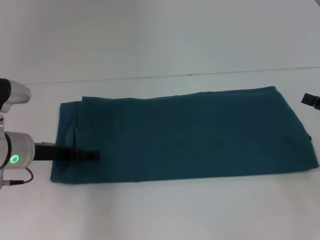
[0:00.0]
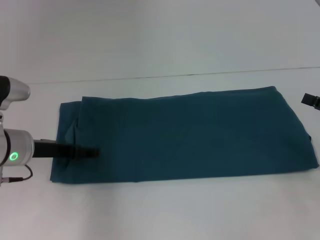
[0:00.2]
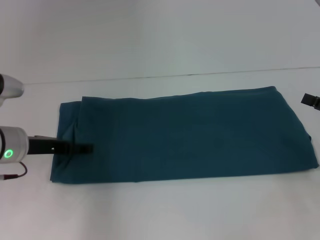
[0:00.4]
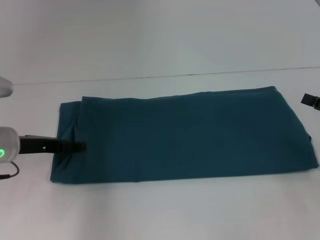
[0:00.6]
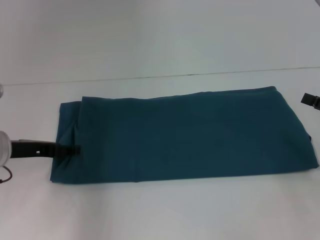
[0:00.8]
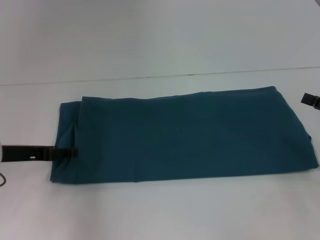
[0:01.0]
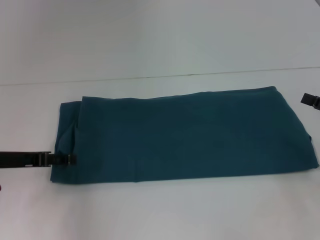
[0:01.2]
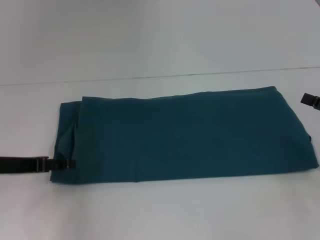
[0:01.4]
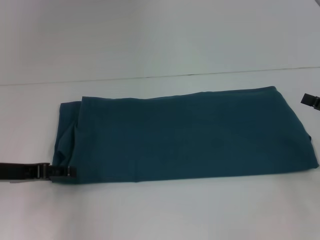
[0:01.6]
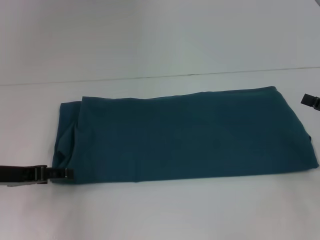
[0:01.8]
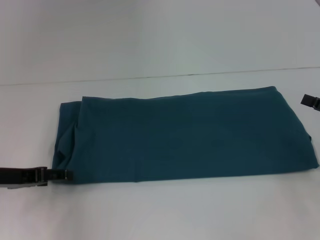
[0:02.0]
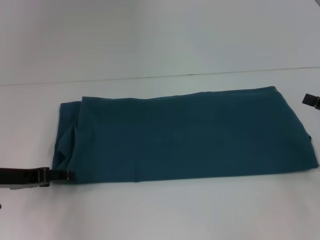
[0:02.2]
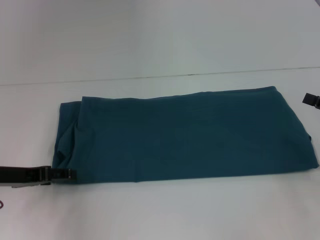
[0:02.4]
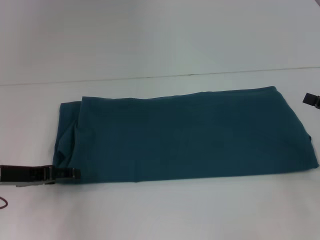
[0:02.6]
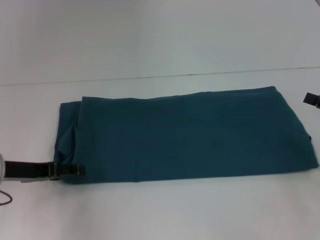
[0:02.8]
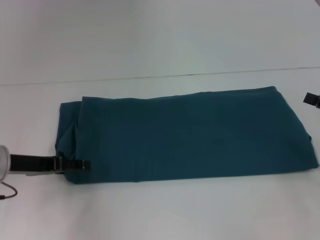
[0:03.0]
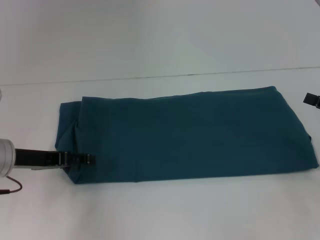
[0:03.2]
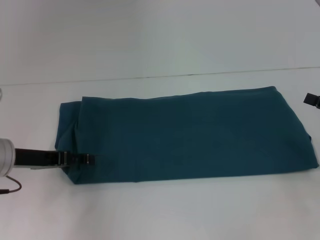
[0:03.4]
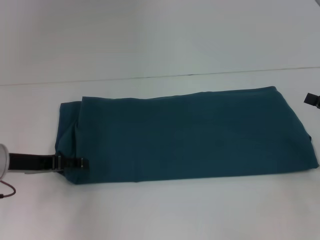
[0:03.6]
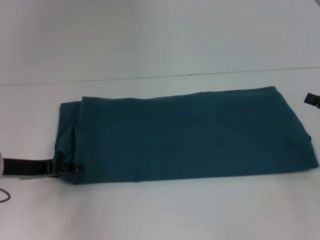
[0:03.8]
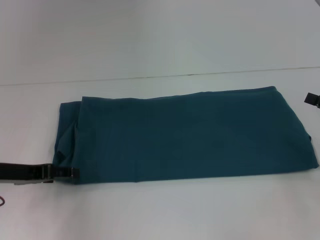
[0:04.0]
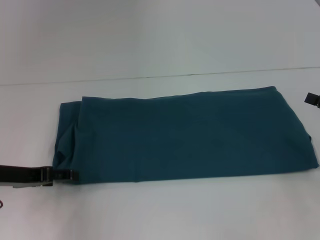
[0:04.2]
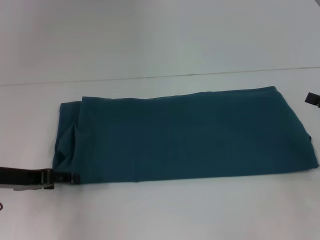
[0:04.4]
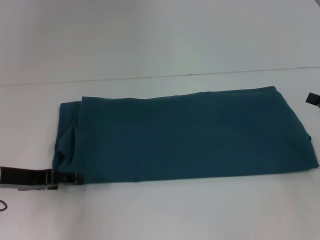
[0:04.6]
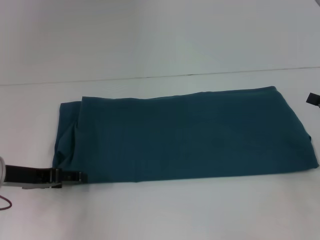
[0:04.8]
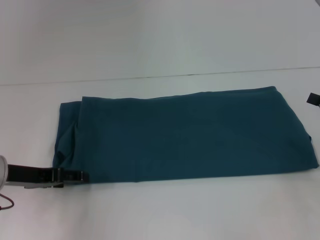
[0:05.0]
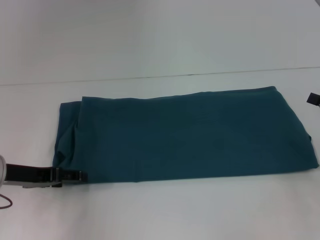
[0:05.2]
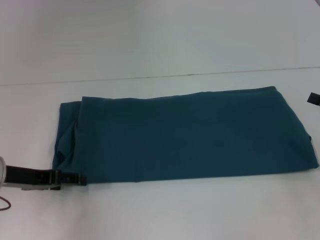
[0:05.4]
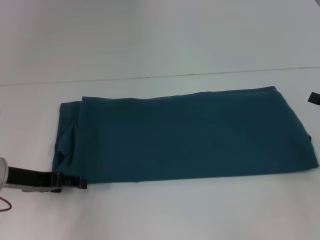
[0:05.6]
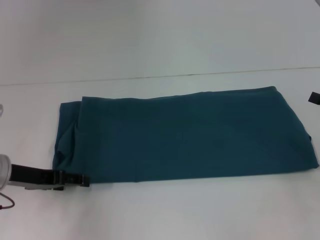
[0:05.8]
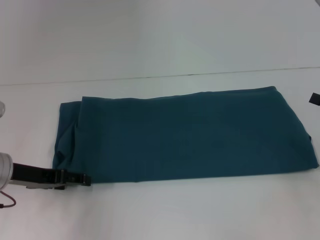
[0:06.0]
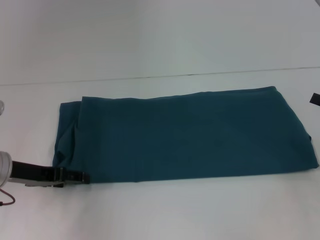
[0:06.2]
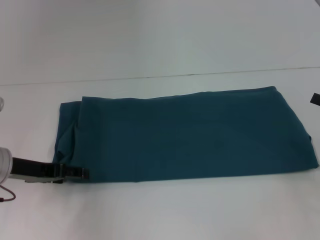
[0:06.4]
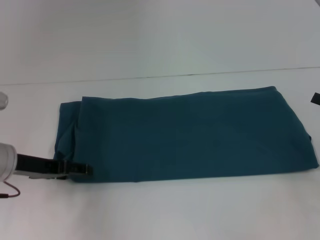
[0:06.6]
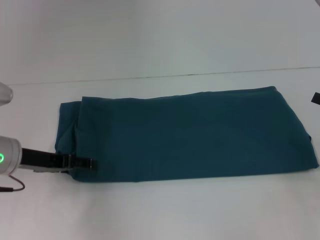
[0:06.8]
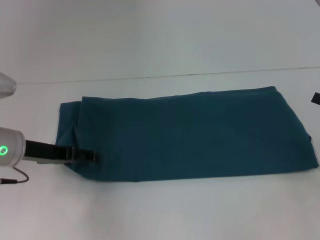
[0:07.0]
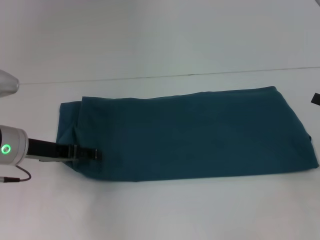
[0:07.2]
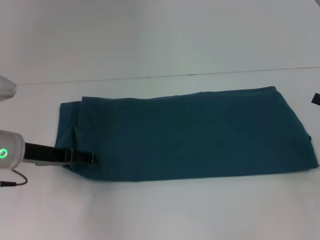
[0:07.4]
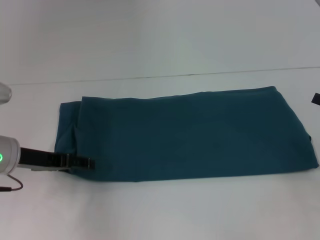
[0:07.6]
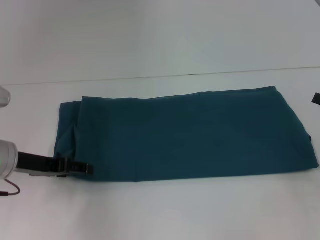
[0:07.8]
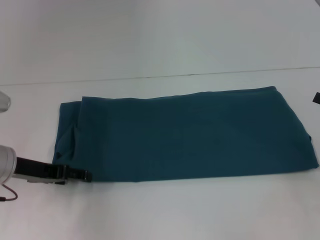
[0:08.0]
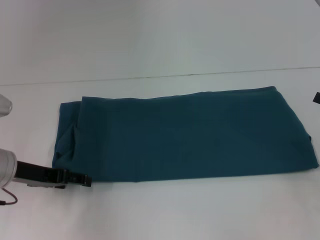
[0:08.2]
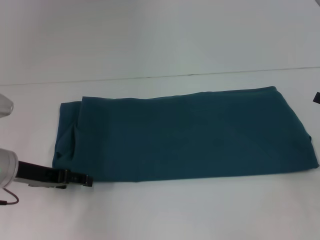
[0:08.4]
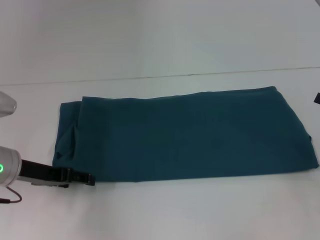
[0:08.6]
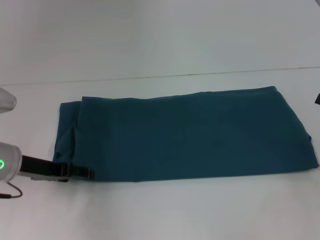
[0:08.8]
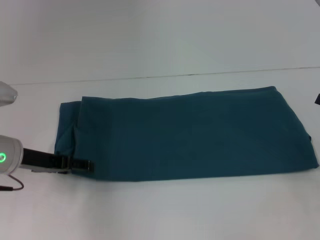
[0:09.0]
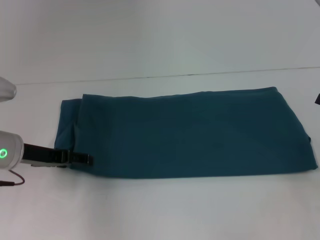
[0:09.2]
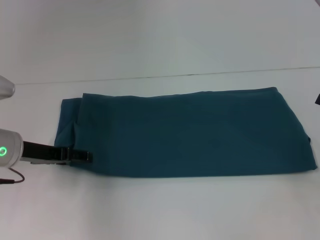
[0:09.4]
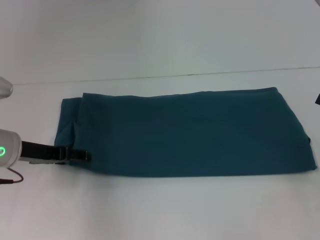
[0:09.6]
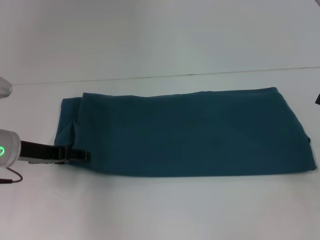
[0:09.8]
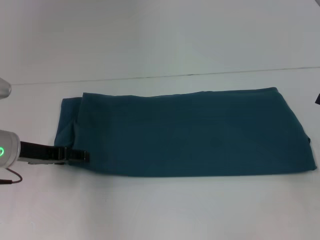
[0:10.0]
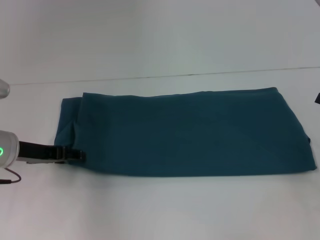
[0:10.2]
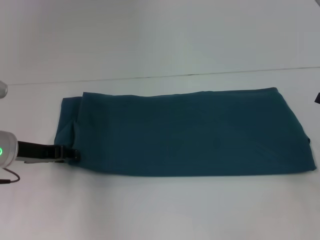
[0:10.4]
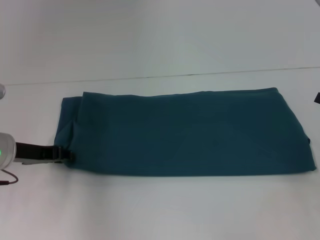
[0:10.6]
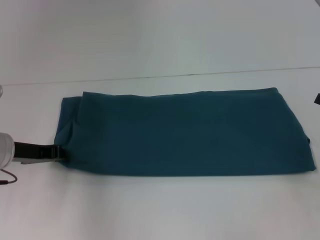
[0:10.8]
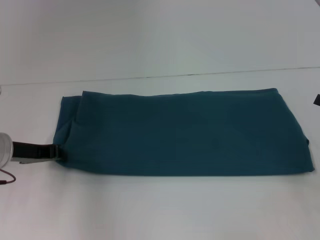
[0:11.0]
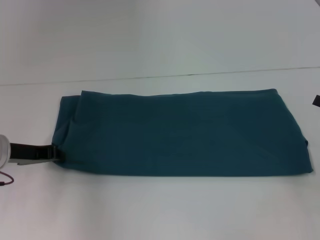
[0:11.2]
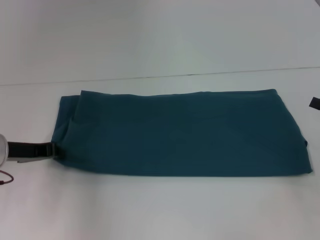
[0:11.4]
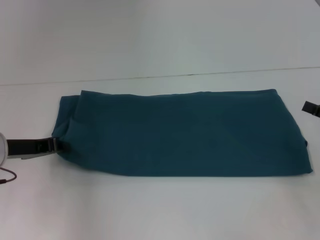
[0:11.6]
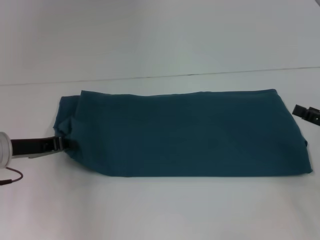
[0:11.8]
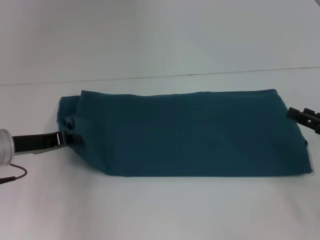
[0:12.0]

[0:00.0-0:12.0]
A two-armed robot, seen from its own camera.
0:00.0 to 0:01.6: The left gripper is displaced to the left by some 5 cm.
0:01.6 to 0:07.6: The grippers make only small movements.
0:09.0 to 0:10.4: The grippers make only small movements.
0:10.4 to 0:12.0: The left gripper closes up.

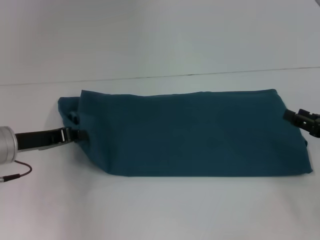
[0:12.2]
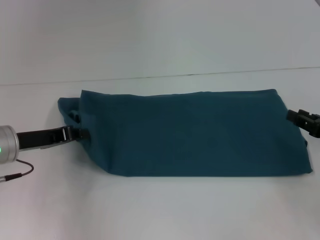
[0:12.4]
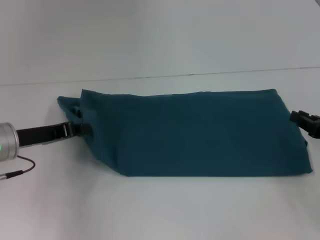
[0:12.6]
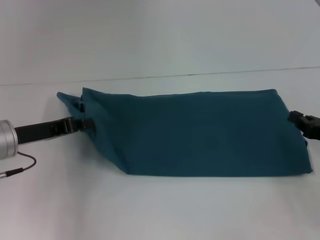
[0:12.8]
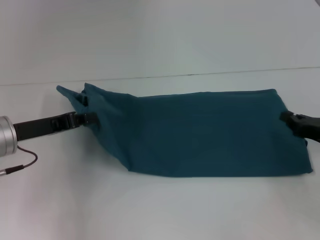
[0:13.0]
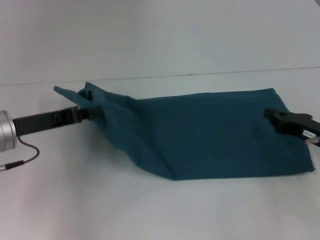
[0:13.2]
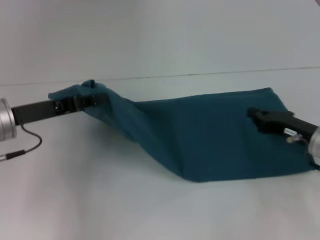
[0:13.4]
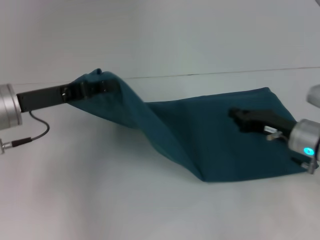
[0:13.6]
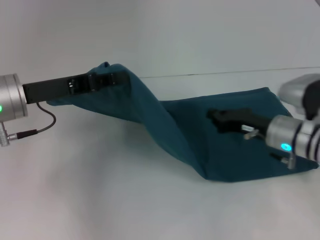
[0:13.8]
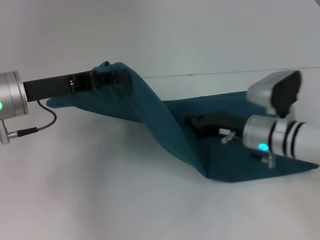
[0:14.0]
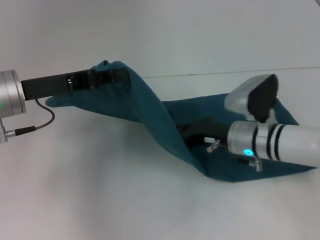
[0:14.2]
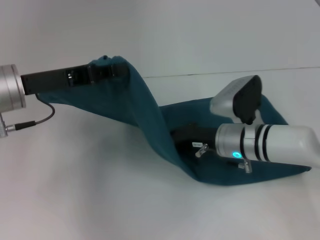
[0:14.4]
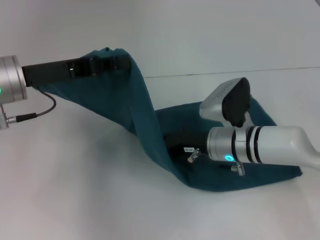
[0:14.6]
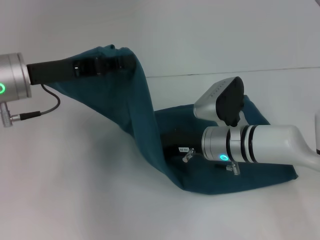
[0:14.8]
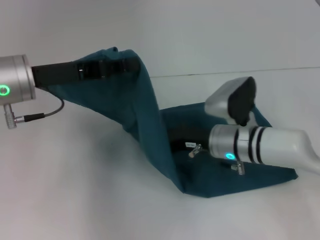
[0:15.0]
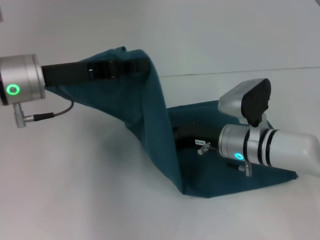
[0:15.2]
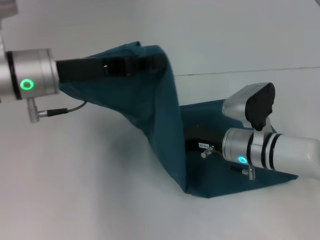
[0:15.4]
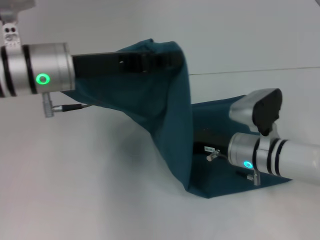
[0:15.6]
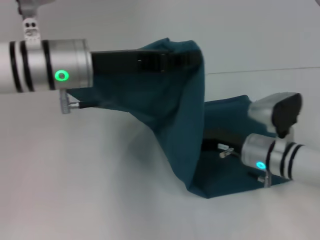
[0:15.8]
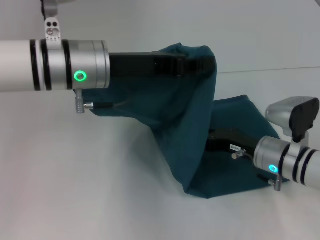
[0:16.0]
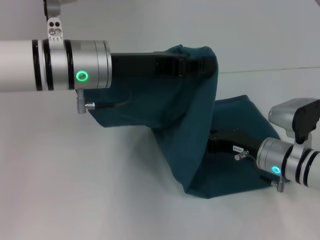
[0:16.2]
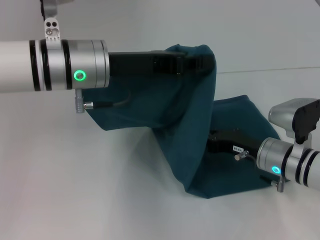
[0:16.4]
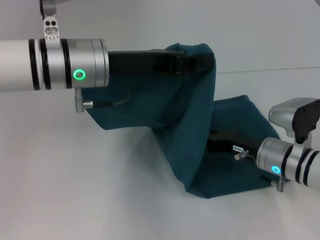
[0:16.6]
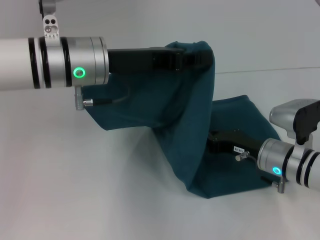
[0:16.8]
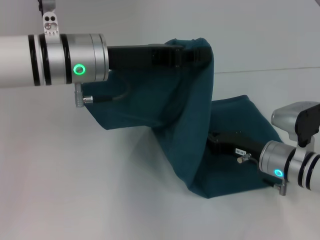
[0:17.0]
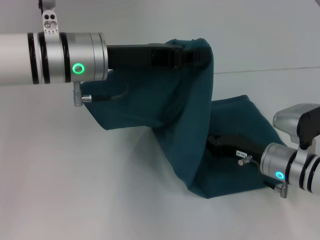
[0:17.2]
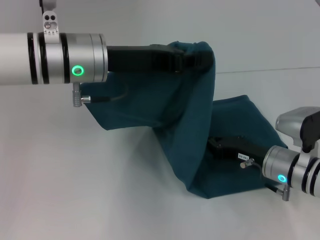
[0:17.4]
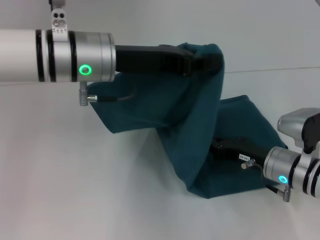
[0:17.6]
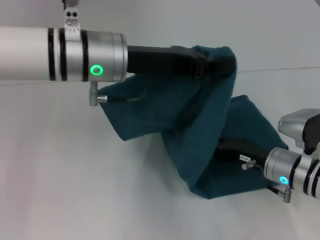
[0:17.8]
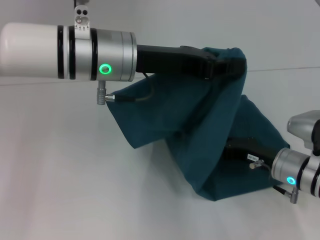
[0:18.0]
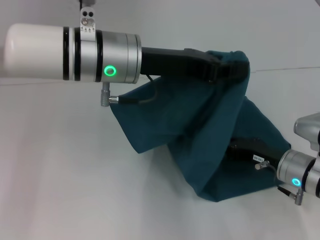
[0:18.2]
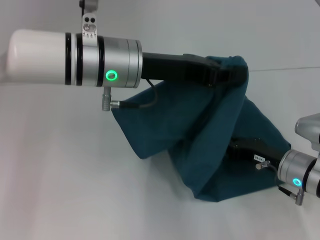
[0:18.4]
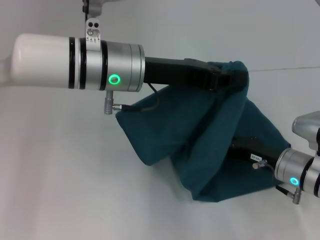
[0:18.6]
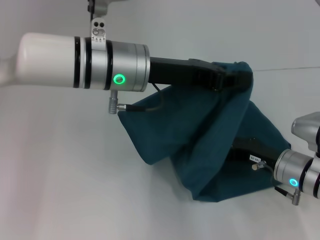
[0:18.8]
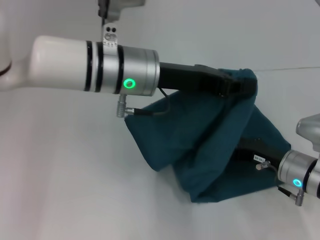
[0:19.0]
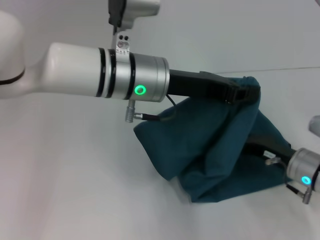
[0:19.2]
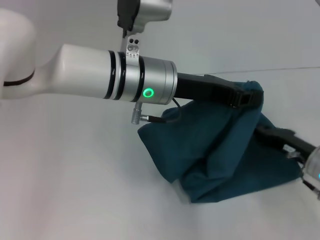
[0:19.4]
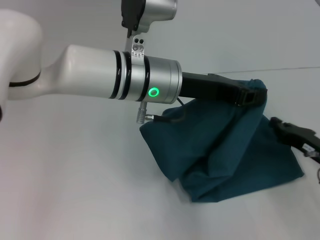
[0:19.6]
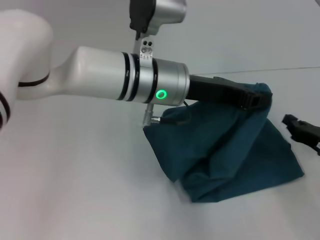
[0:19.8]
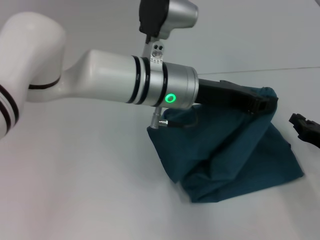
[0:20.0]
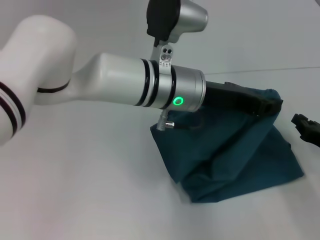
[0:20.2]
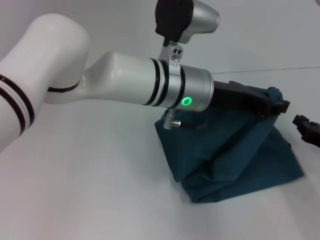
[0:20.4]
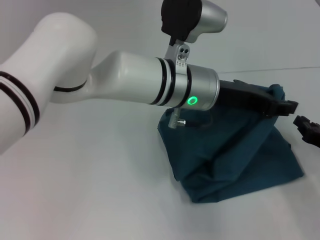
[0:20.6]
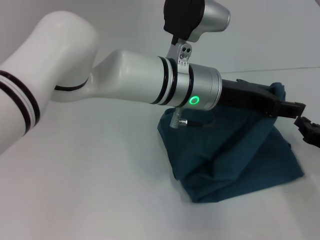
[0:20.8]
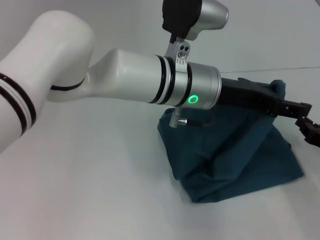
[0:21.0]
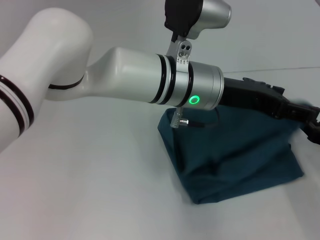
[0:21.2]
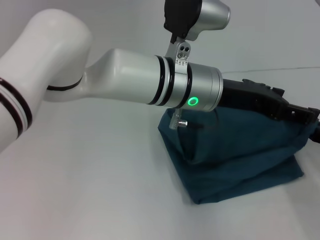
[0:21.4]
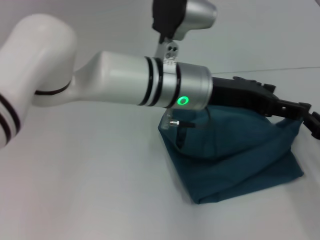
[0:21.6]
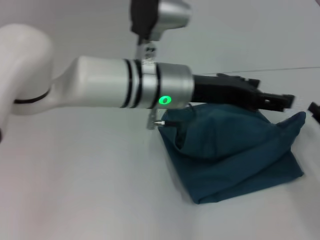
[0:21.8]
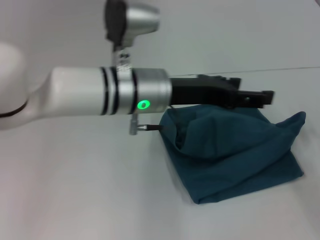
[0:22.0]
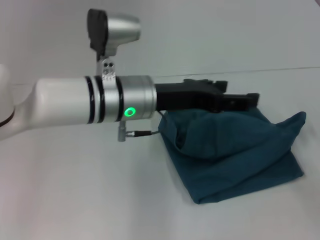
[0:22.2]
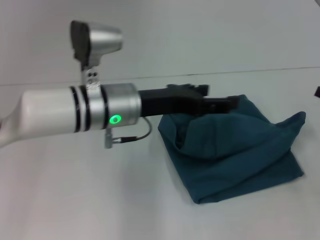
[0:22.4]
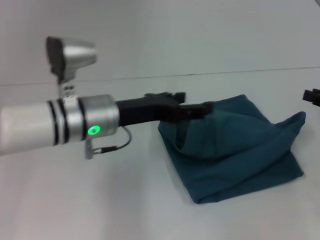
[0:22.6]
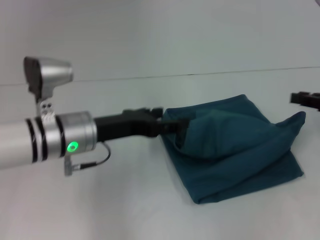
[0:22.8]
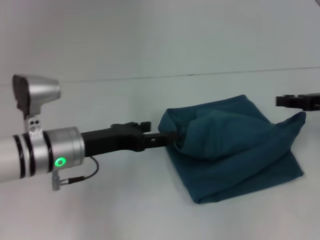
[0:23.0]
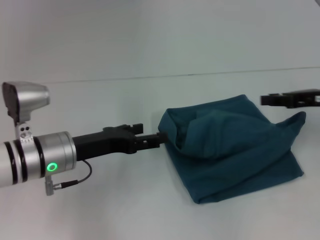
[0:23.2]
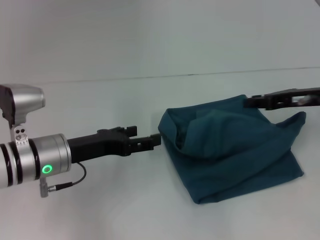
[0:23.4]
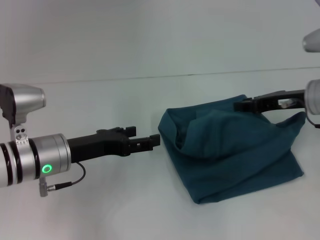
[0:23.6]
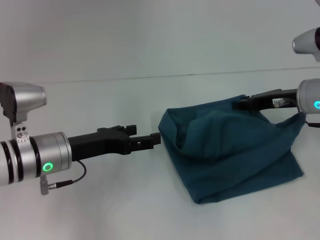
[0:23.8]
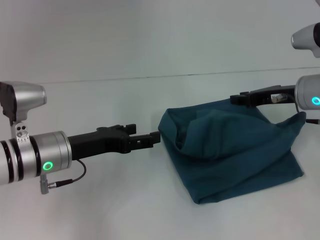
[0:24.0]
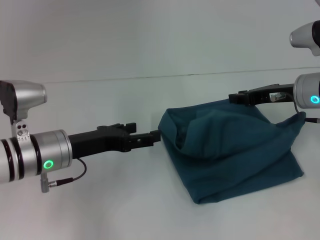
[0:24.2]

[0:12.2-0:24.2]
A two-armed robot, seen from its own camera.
Step, 0:12.2 to 0:18.6: Press the middle of the clothes with your right hand.
Step, 0:18.8 to 0:21.6: Fold the clothes to the left.
0:12.2 to 0:13.8: The left gripper shifts about 5 cm upward. The right gripper heads to the left and forward, covering some 15 cm, and closes up.
0:13.8 to 0:15.2: The right gripper is displaced to the left by some 10 cm.
0:15.2 to 0:16.6: The grippers both shift to the right by about 5 cm.
0:18.2 to 0:19.8: Both grippers move to the right, some 5 cm.
0:19.8 to 0:21.2: The left gripper opens.
0:21.2 to 0:22.6: The left gripper heads to the left, covering some 10 cm. Meanwhile the right gripper heads upward, covering roughly 10 cm.
0:22.6 to 0:24.2: The left gripper shifts approximately 10 cm to the left and downward, while the right gripper goes approximately 15 cm to the left and forward.
